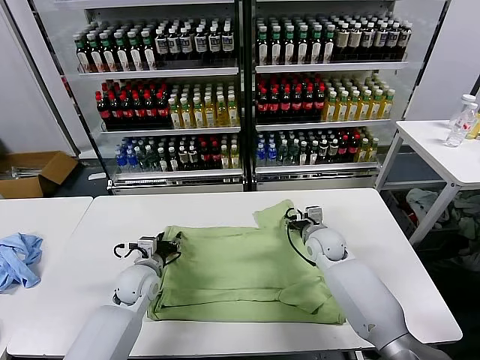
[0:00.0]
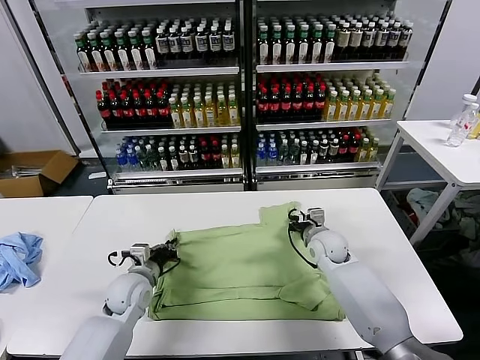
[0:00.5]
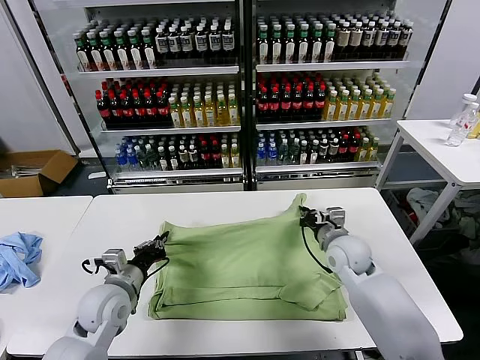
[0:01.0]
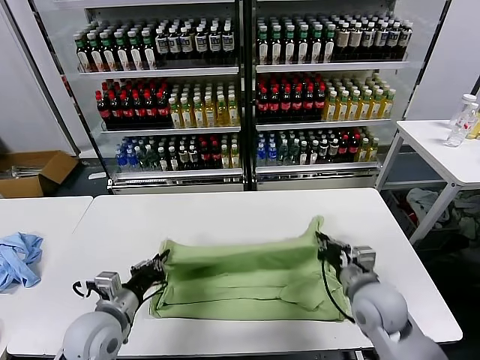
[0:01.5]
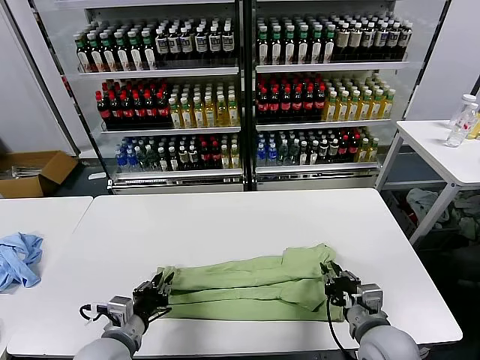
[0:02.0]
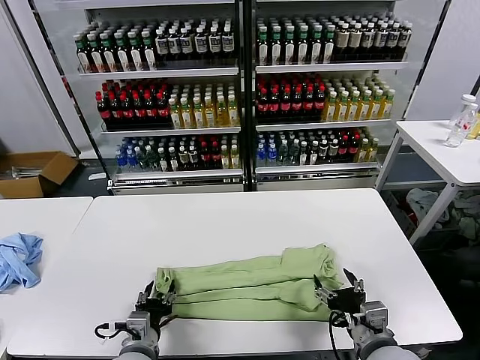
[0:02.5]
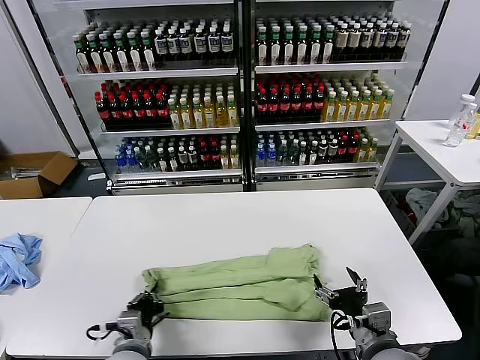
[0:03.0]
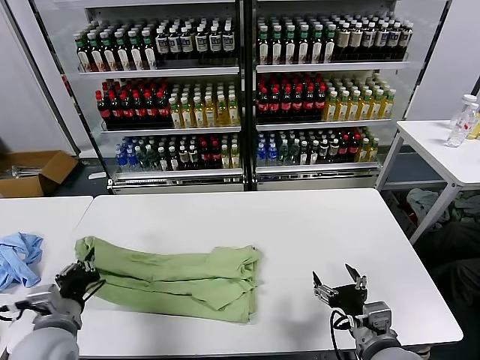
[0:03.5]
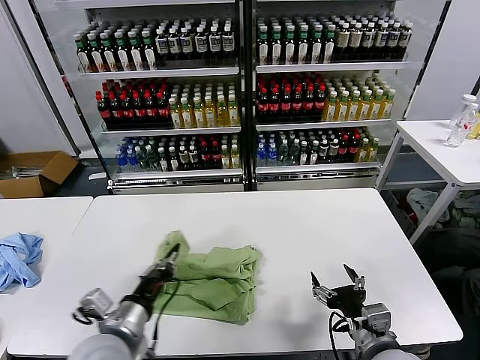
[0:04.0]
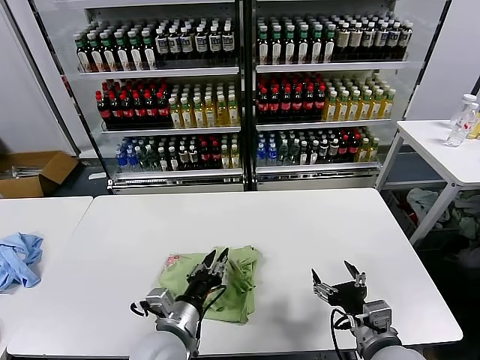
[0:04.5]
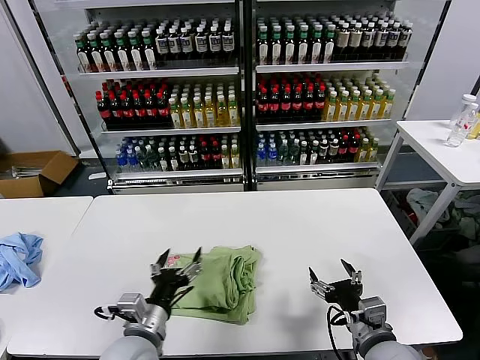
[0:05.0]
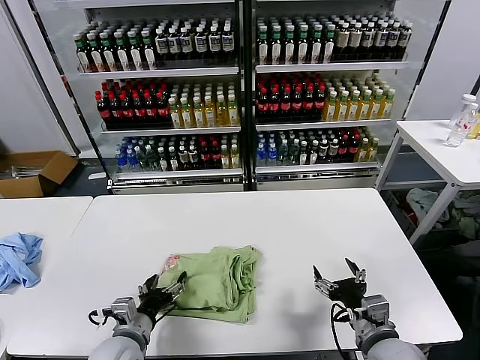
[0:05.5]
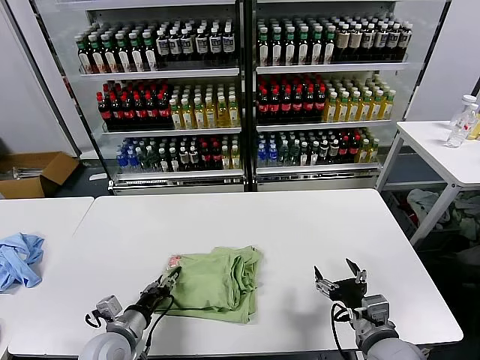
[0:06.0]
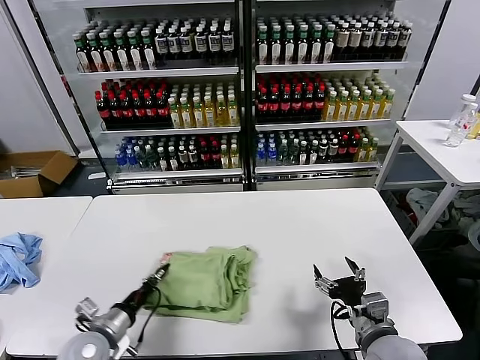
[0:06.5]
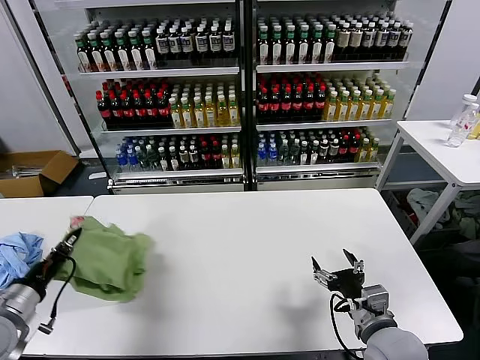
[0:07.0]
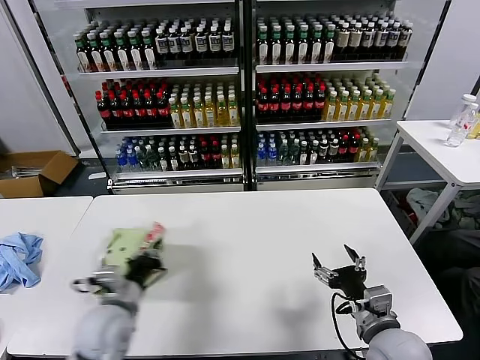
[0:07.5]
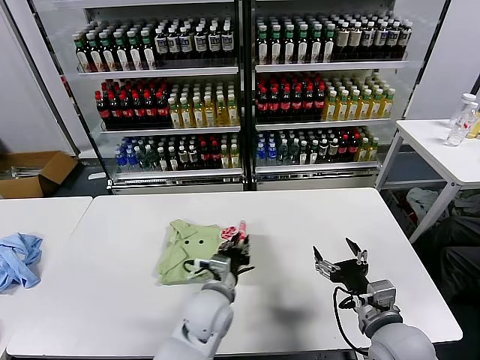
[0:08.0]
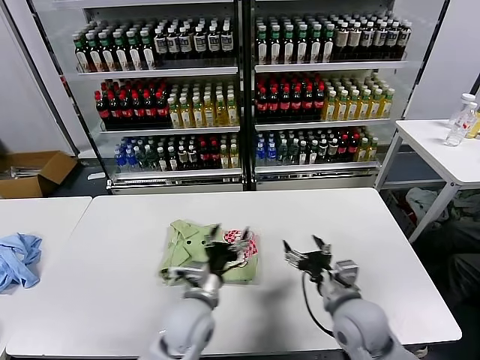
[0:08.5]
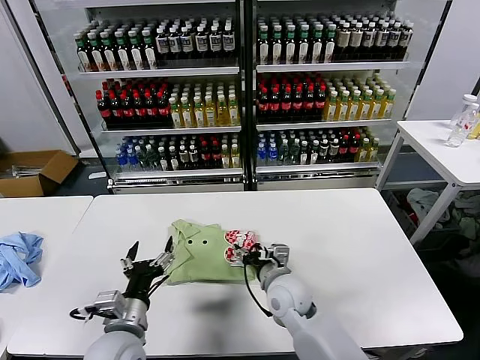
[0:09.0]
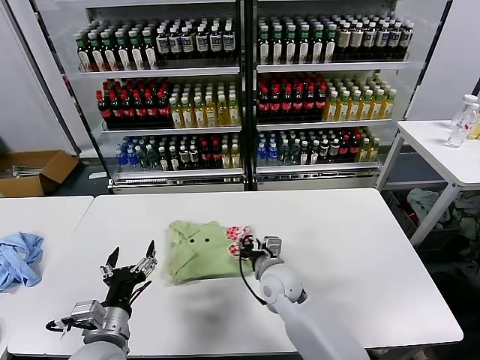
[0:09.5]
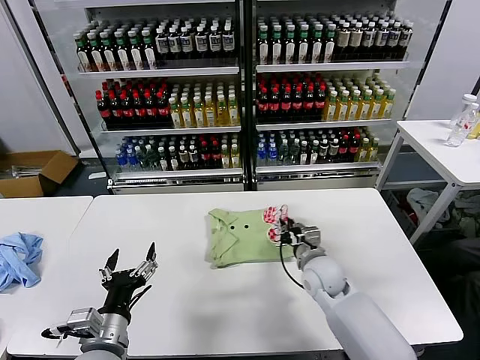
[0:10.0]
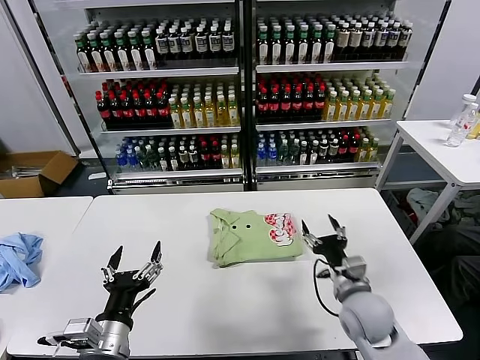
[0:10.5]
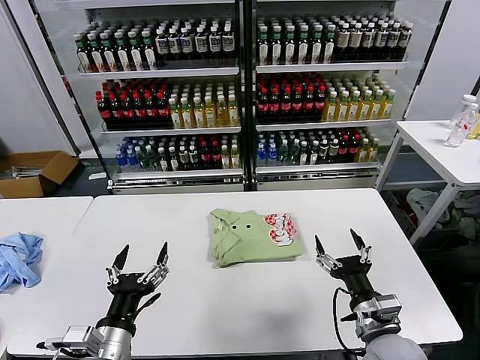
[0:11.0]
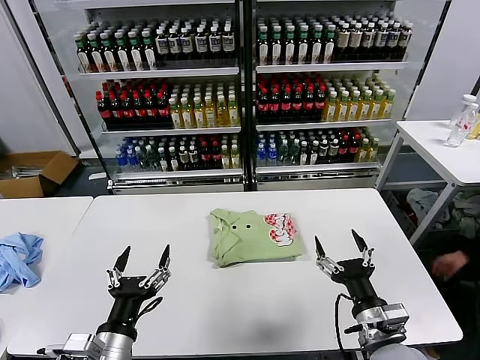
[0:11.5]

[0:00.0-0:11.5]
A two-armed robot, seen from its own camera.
Task of the whole recording: fold and organize the clothes.
Step, 0:01.0 to 0:02.0: use both grippers to drag the upper edge of the fabric backward and fold it over the lower edge.
Step, 0:02.5 to 0:03.0: use the left gripper to clamp the left edge of the fabric.
Step, 0:03.5 to 0:04.5: use the left gripper to drag the left edge of the fabric to the left and folds it over the right edge.
Step, 0:05.0 to 0:08.0: Flip the folded clothes over with left gripper.
Step, 0:08.5 to 0:10.0: Drag the clothes to the center of the table.
0:00.0 to 0:02.0: The two grippers go approximately 20 cm backward. The left gripper closes, while the right gripper closes and opens again.
0:02.0 to 0:04.0: The right gripper opens its fingers. Meanwhile the left gripper goes left and right, approximately 10 cm each way, reversing 2 times, and opens, then closes again.
0:04.0 to 0:06.0: The left gripper moves downward, about 10 cm, and opens.
0:06.0 to 0:07.5: The left gripper heads upward, covering about 10 cm, travels to the left and back again, approximately 15 cm each way, and closes its fingers.
0:07.5 to 0:09.5: The right gripper heads to the left and forward, covering some 25 cm, and closes; the left gripper heads backward, covering some 5 cm, travels to the right and back again, some 20 cm each way, and opens up.
0:09.5 to 0:11.5: The right gripper moves backward and to the right, some 25 cm, and opens. Meanwhile the left gripper goes approximately 5 cm backward.
